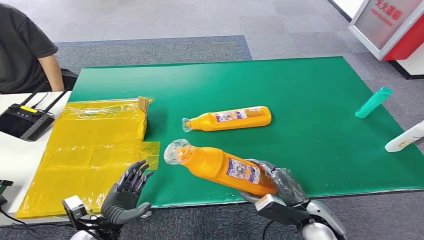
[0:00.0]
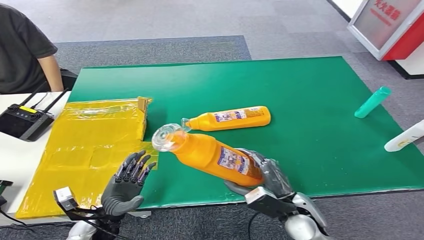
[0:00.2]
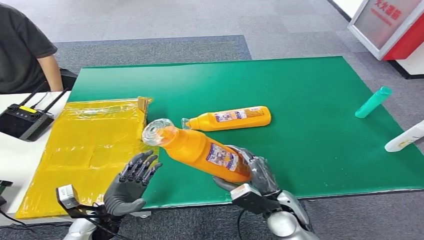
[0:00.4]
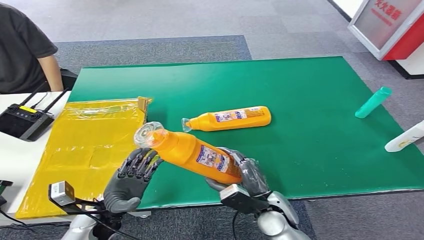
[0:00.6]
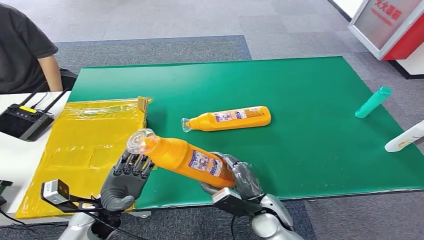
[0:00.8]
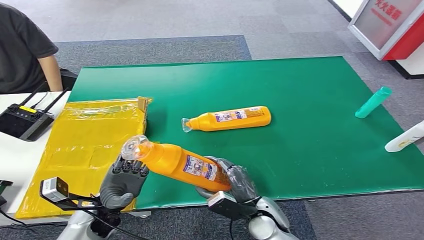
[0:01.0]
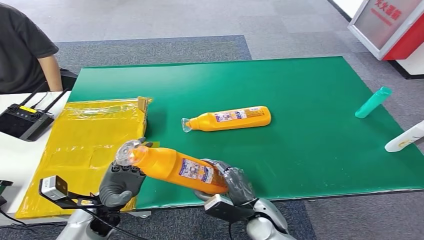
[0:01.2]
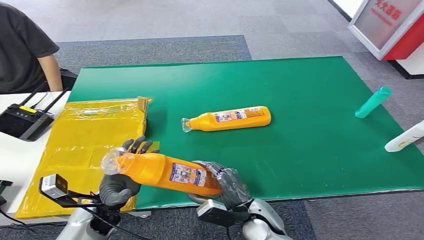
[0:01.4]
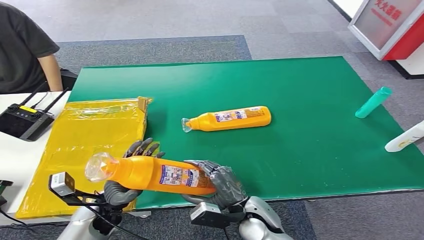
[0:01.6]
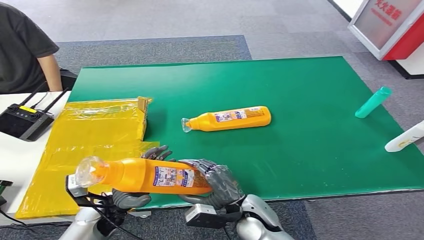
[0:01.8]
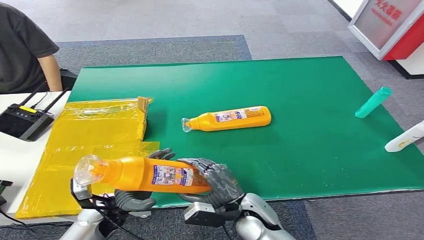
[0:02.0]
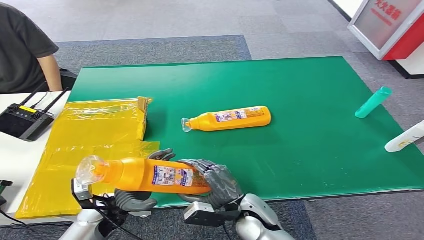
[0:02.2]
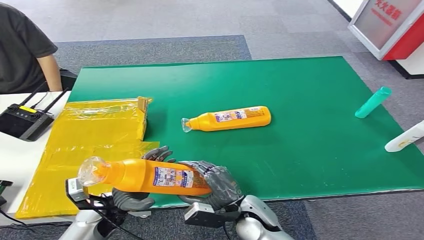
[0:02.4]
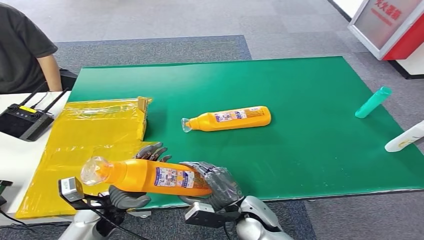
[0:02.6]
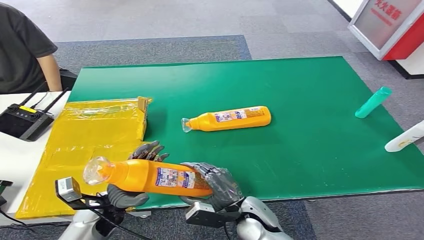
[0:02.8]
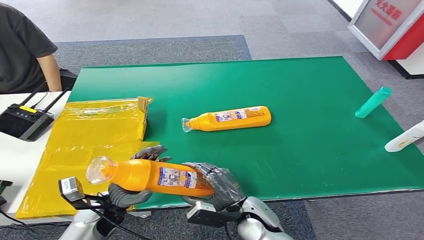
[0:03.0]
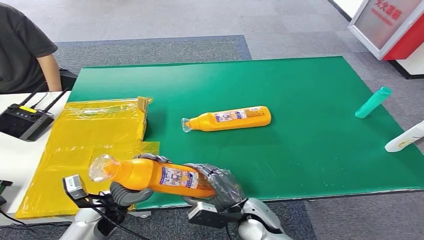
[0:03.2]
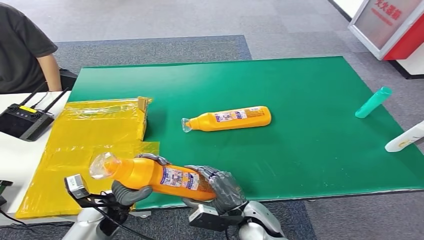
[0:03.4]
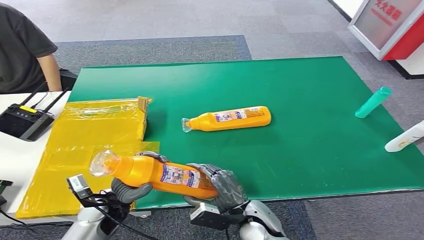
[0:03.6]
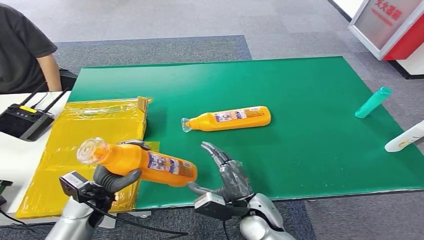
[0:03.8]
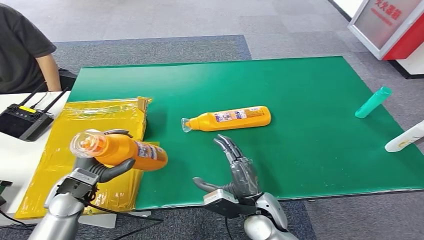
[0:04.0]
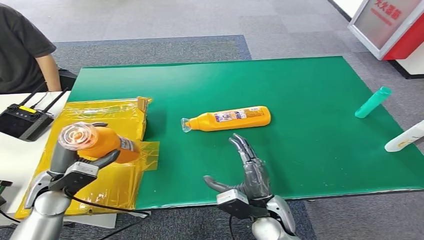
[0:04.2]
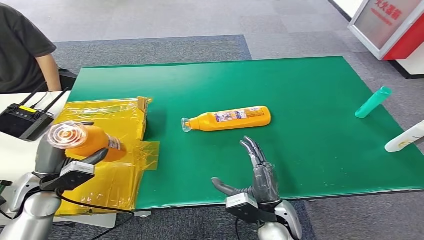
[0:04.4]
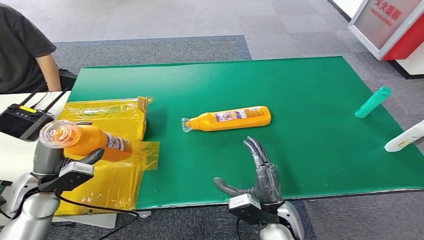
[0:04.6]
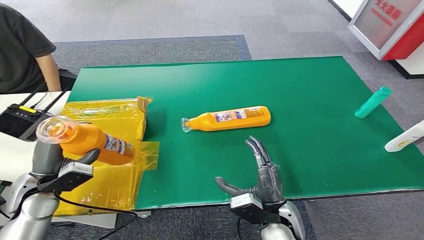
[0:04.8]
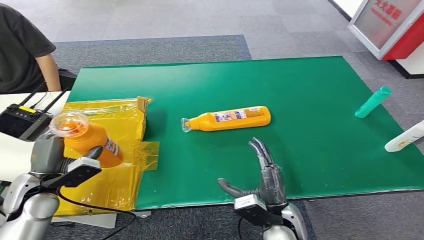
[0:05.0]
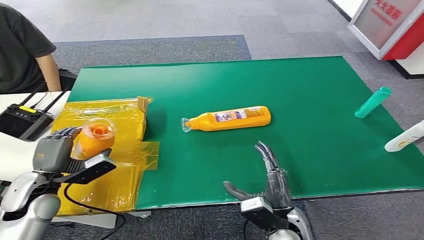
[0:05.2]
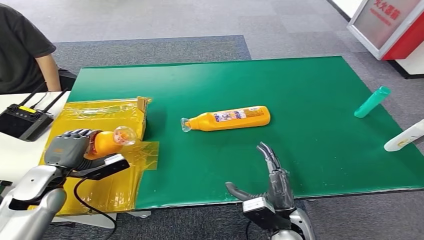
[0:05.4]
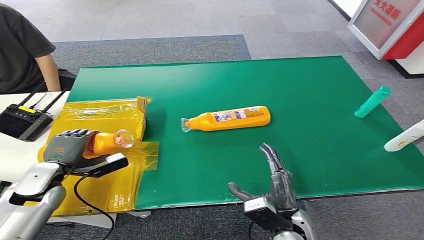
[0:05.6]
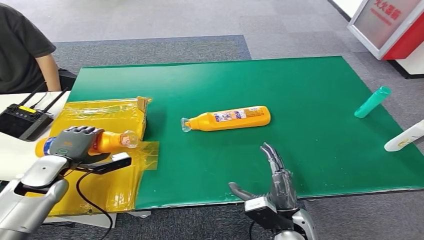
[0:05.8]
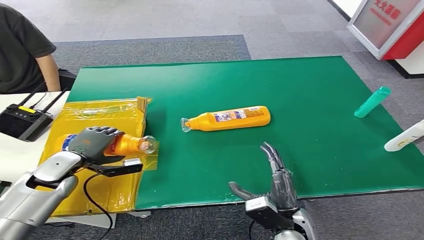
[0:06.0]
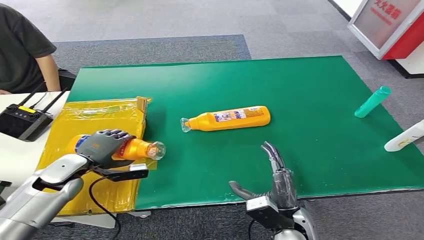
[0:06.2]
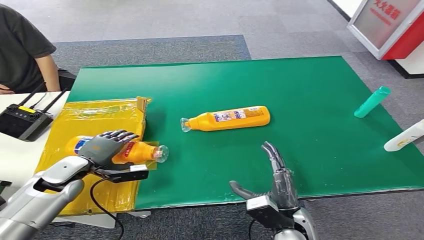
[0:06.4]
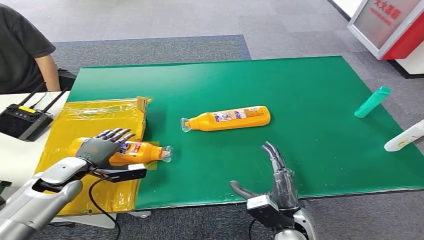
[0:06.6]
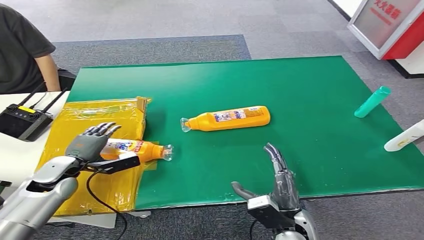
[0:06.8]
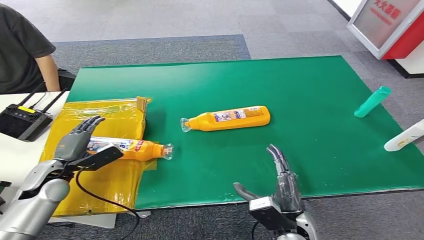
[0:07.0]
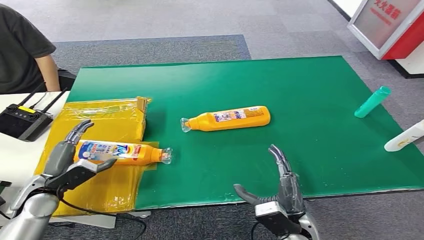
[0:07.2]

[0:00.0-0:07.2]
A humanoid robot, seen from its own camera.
Step, 0:00.6 to 0:07.2: Turn the bottle to the front side.
0:00.0 to 0:01.4: The left hand moves upward and forward, about 10 cm; the right hand heads to the left, covering approximately 10 cm.
0:01.4 to 0:02.8: The hands move only a little.
0:02.8 to 0:04.4: The left hand goes some 15 cm to the left and upward. The right hand ends up approximately 5 cm from where it was.
0:04.4 to 0:05.8: The left hand moves approximately 5 cm.
0:05.8 to 0:07.2: The left hand shifts by about 5 cm.
